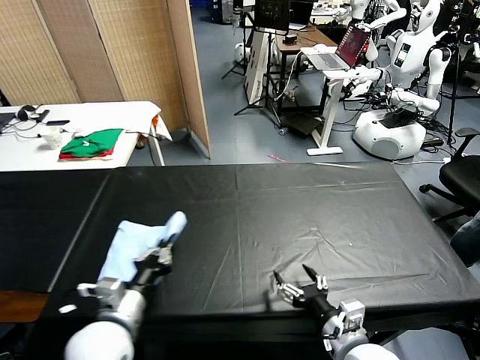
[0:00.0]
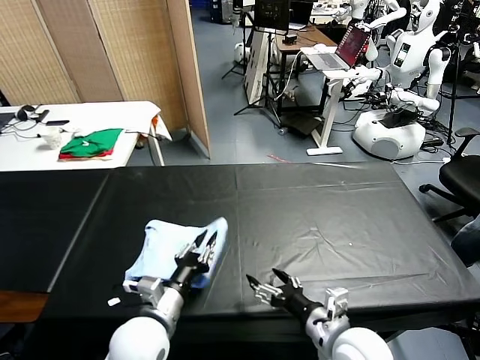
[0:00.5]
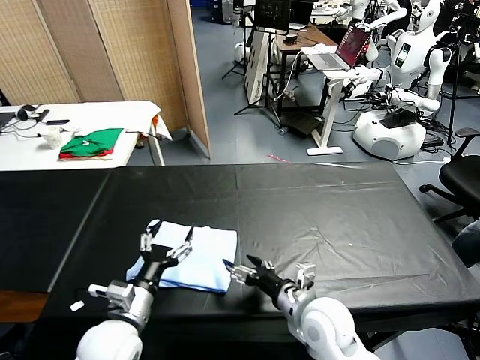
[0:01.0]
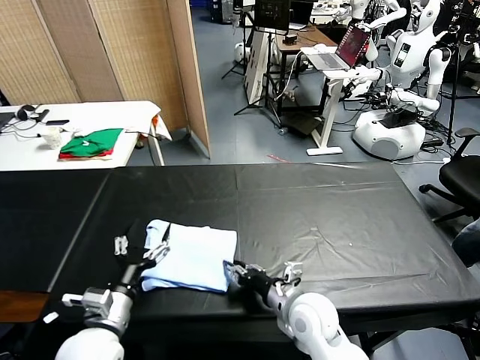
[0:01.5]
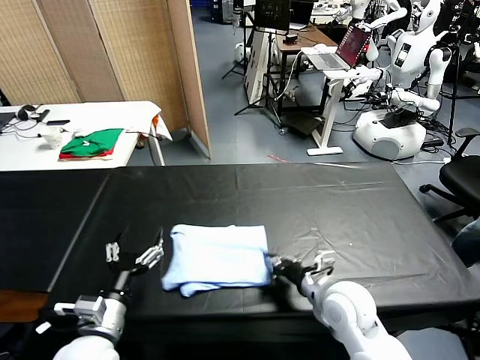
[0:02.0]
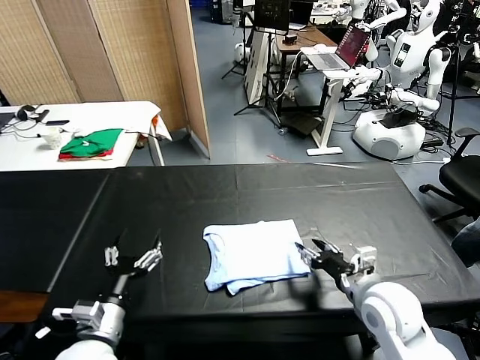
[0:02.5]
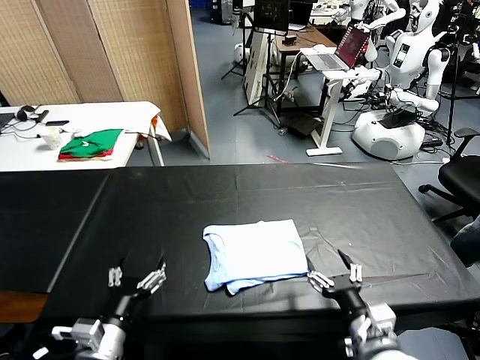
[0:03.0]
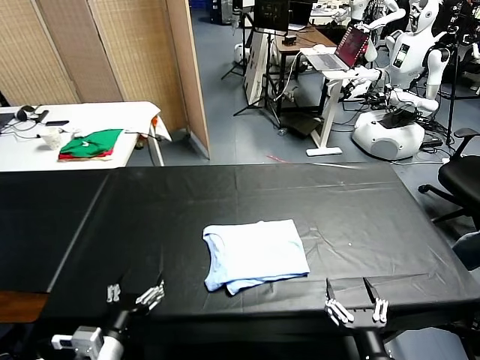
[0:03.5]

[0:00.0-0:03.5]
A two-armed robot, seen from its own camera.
Task of the whole recording: fold and organize the clothes.
Step, 0:01.0 to 0:02.5: Drag the clothes to the center of the table.
0:00.0 to 0:02.0: The left gripper goes to the right and returns, about 5 cm each way, and opens its fingers. Meanwhile the right gripper shifts approximately 10 cm forward, and closes.
0:02.0 to 0:03.5: The left gripper moves backward, some 5 cm; the right gripper shifts some 20 cm backward, and opens its fingers.

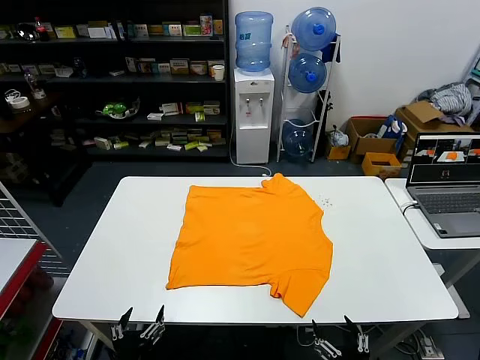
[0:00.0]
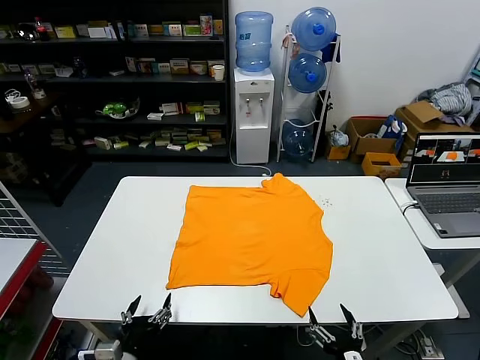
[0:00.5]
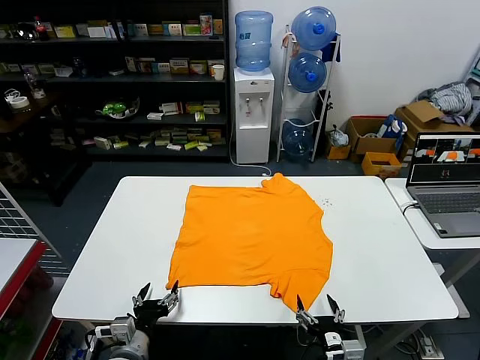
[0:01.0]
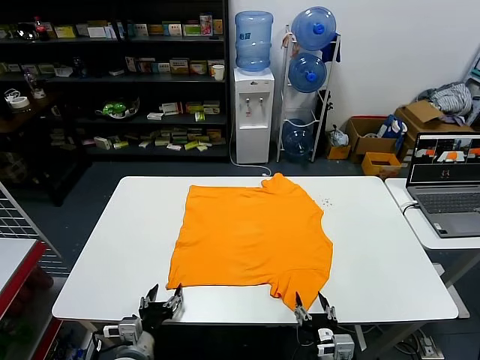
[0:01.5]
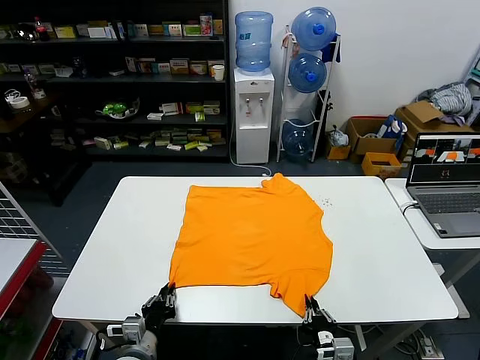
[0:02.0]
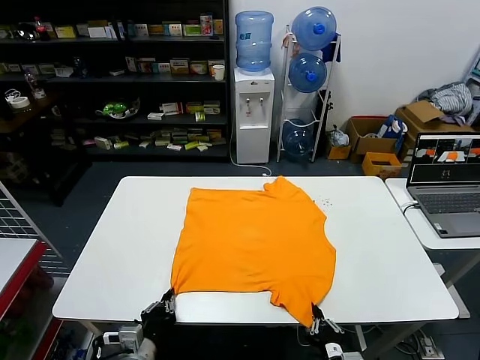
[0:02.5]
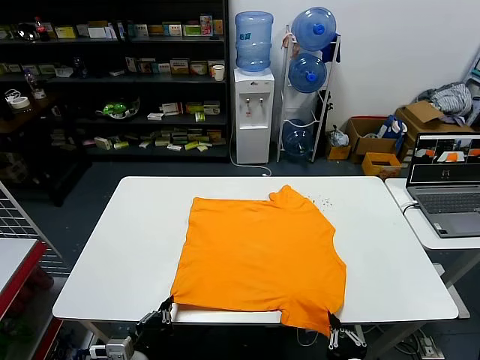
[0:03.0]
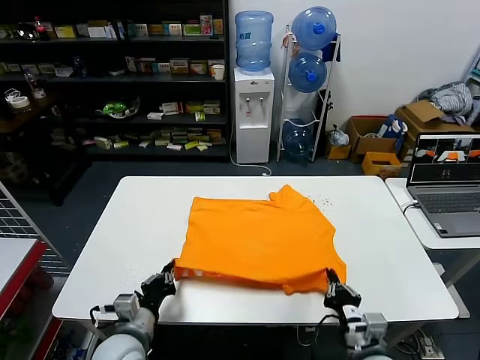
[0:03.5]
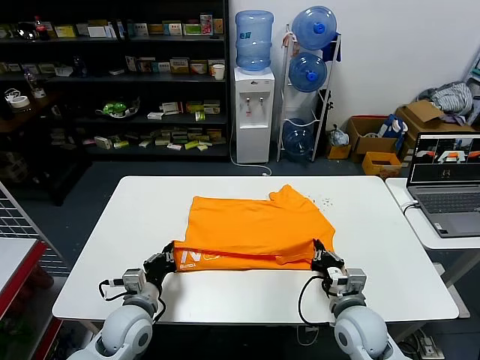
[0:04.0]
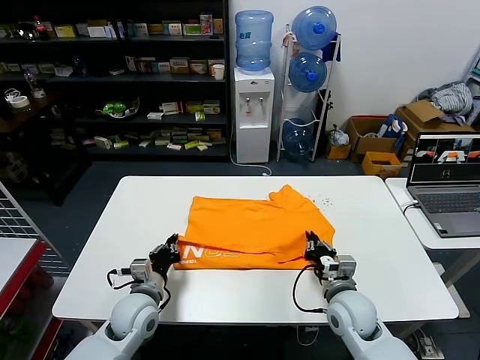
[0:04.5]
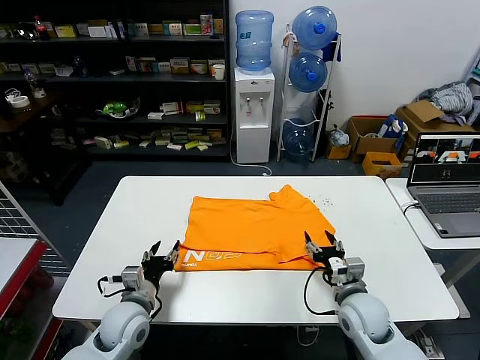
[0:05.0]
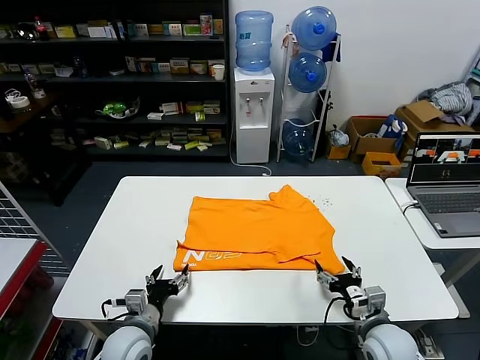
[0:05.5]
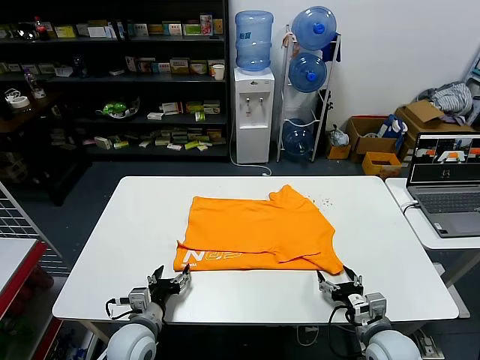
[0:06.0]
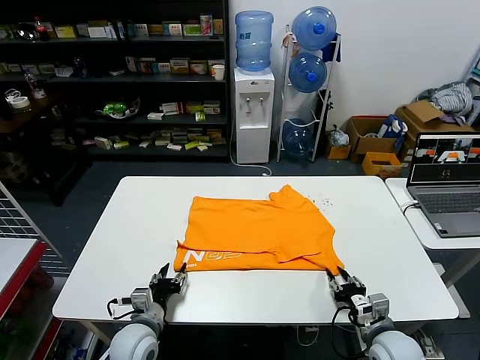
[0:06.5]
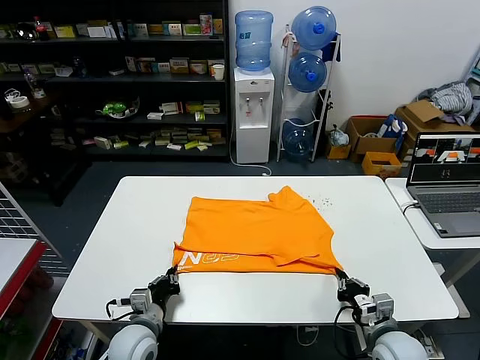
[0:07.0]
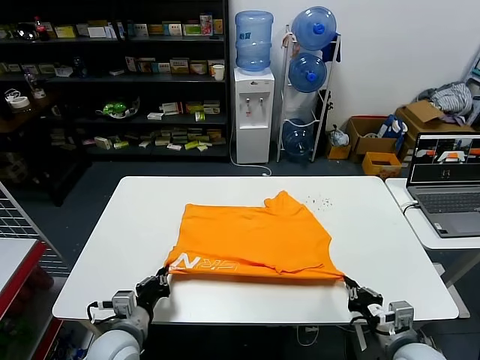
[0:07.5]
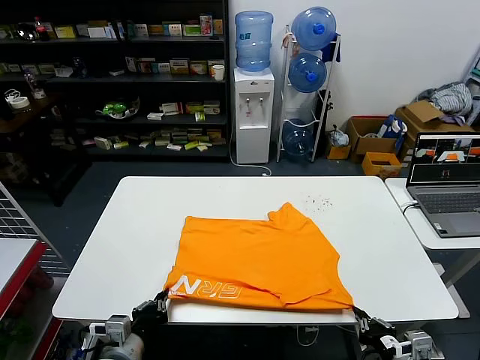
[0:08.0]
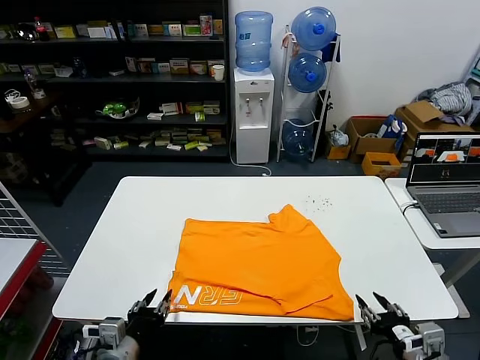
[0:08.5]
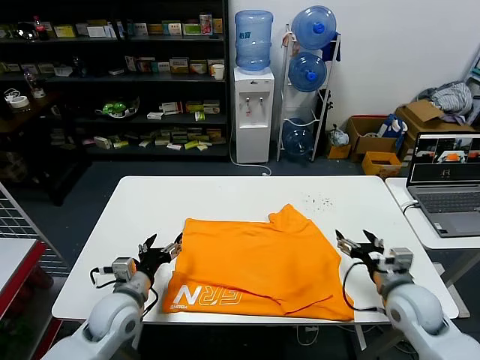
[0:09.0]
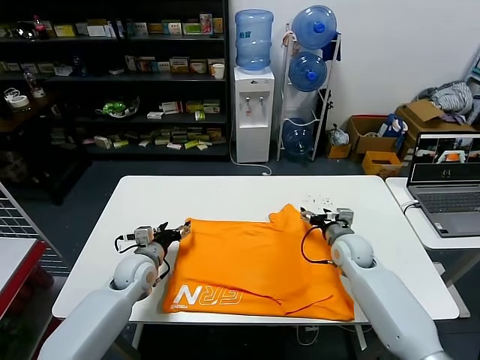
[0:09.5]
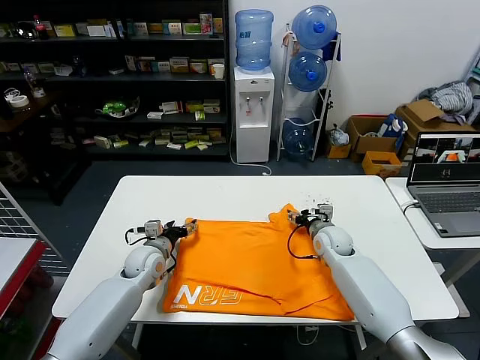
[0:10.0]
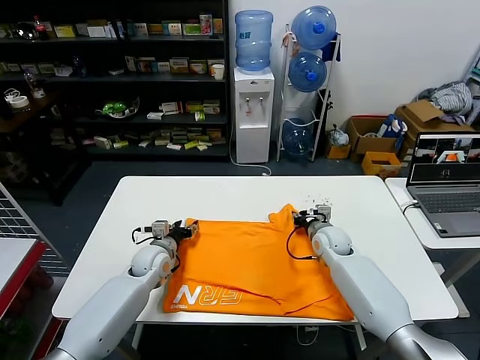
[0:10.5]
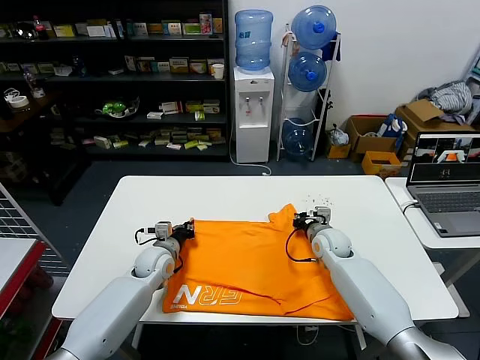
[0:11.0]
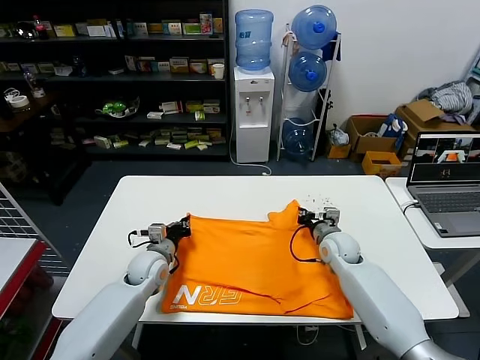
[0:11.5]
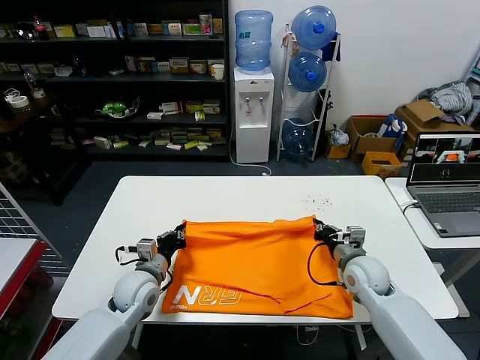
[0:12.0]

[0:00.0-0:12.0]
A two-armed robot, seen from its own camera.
Task of the whole recording: fold and organize the clothes.
Step, 0:00.0 to 0:02.0: use both grippers simultaneously to clamp the lower edge of the clothing fabric.
Step, 0:02.5 to 0:04.5: use both grippers to drag the lower edge of the fabric forward and fold it over the upper edge.
Step, 0:05.0 to 0:08.0: Drag the clothes downward with both gripper.
Step, 0:08.5 to 0:11.0: use both grippers simultaneously to clamp the upper edge of the clothing fabric.
0:02.0 to 0:04.0: The left gripper shifts approximately 10 cm forward; the right gripper goes roughly 15 cm forward and upward.
0:04.0 to 0:06.0: The left gripper shifts by roughly 5 cm, and opens up; the right gripper is displaced to the right by about 5 cm, and opens up.
0:06.0 to 0:08.0: The grippers both shift backward and upward by about 10 cm. The left gripper closes up. Meanwhile the right gripper closes.
0:08.0 to 0:10.0: The two grippers go some 30 cm forward. The right gripper opens; the left gripper opens its fingers.
0:10.0 to 0:12.0: Both grippers travel together backward, approximately 10 cm. The left gripper closes up, while the right gripper closes its fingers.

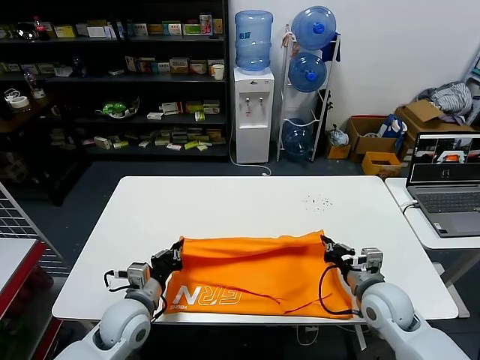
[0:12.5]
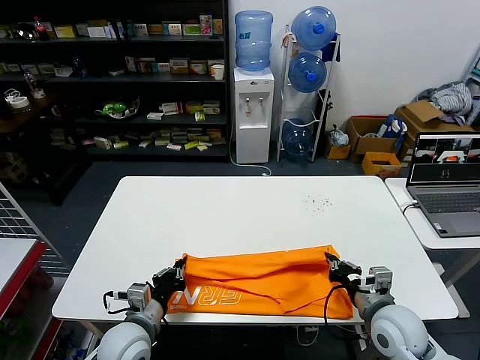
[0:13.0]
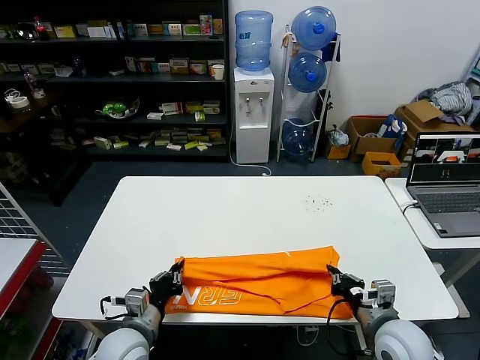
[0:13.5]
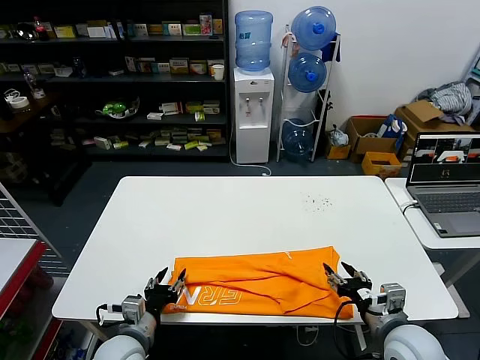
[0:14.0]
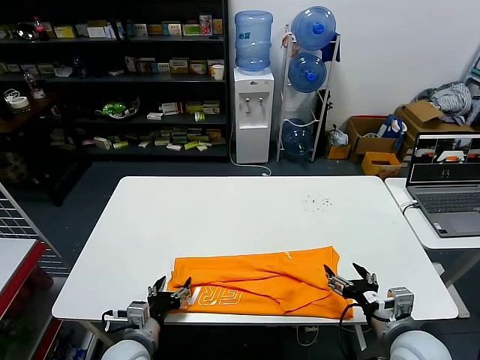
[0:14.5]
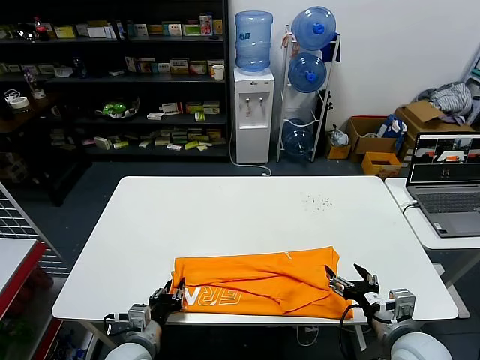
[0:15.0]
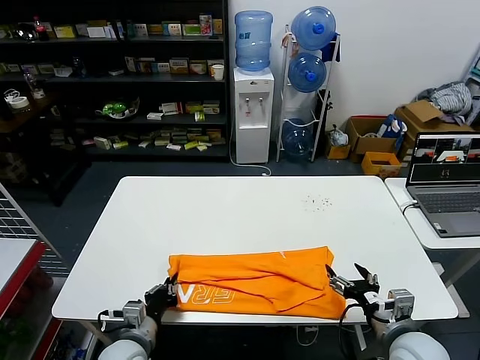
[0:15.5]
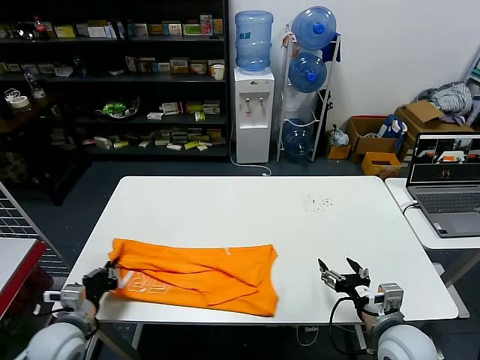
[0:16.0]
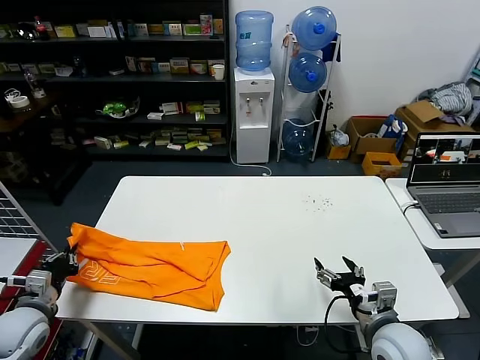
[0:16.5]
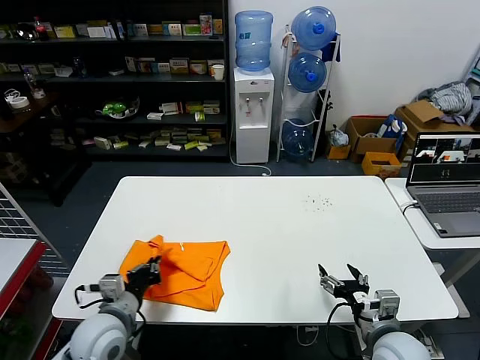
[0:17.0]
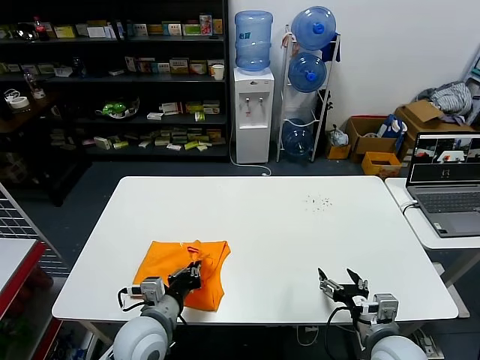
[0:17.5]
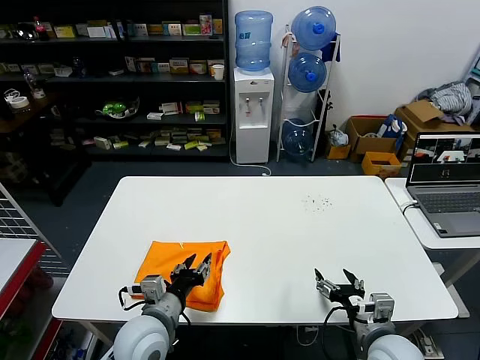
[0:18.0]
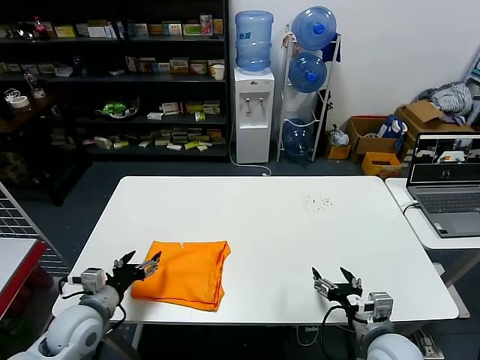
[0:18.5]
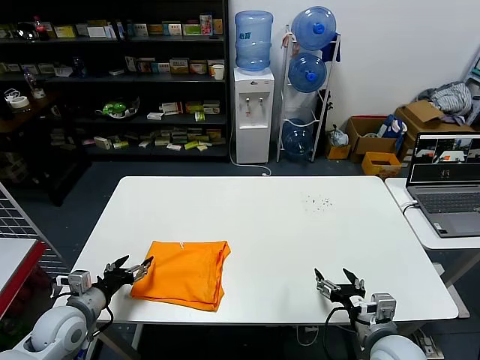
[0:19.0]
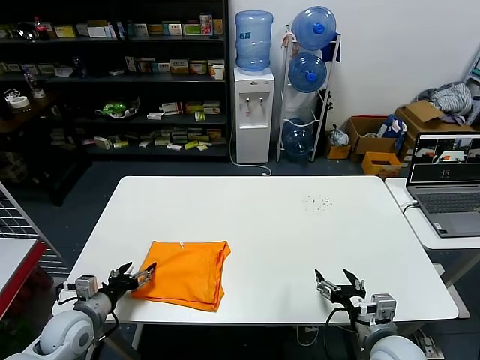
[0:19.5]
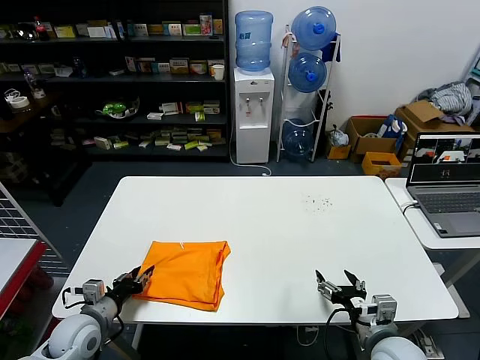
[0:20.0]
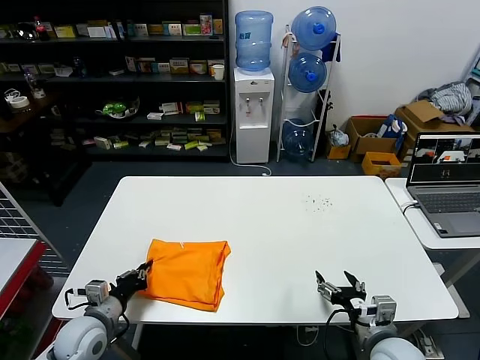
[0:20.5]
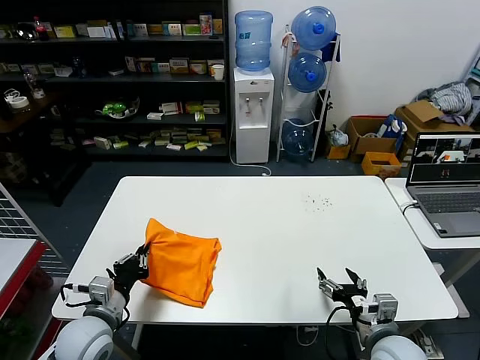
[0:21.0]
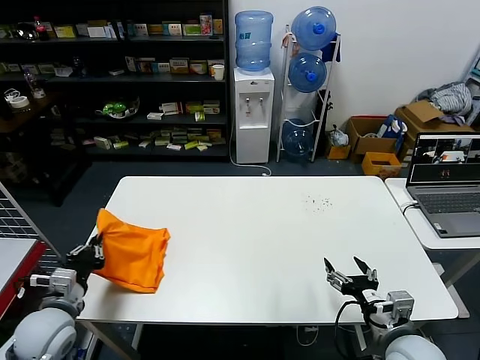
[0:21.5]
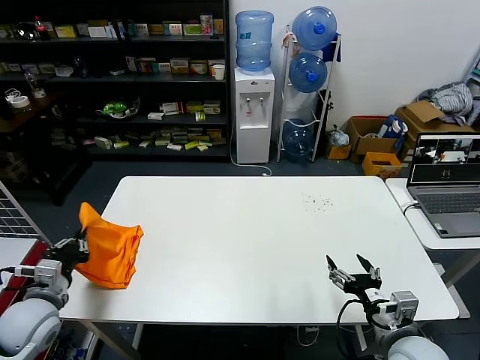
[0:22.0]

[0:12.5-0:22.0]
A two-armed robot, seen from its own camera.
Task of the whole recording: fold and organize the clothes.
Step, 0:14.0 to 0:15.0: use the left gripper to clamp the left edge of the fabric.
Step, 0:15.5 to 0:18.0: use the left gripper to drag the left edge of the fabric to the left and folds it over the right edge.
0:12.5 to 0:14.5: Both grippers travel together backward, roughly 10 cm. The right gripper opens up. Meanwhile the left gripper opens up.
0:14.5 to 0:16.5: The left gripper is displaced to the left by approximately 20 cm, and closes.
0:16.5 to 0:18.0: The left gripper moves to the right, approximately 25 cm, and opens.
0:18.0 to 0:20.0: The left gripper travels to the left by approximately 20 cm, and opens, then closes again.
0:20.0 to 0:22.0: The left gripper shifts about 10 cm upward and to the left, and closes.
